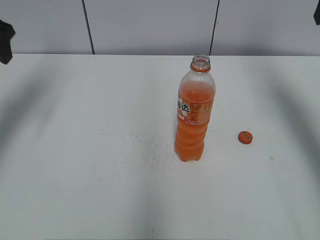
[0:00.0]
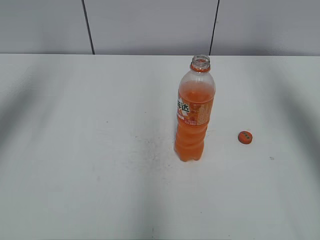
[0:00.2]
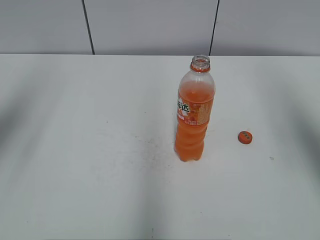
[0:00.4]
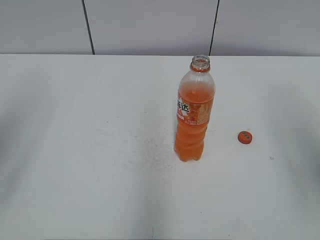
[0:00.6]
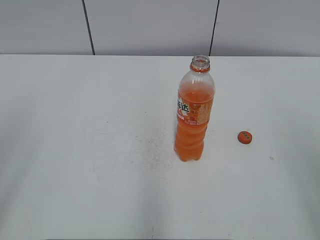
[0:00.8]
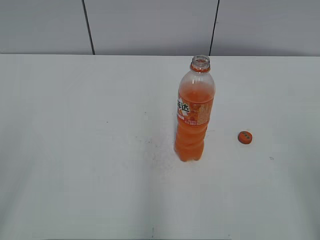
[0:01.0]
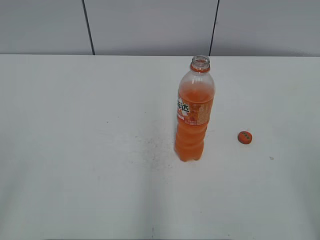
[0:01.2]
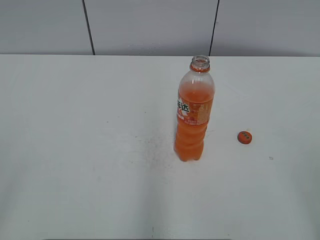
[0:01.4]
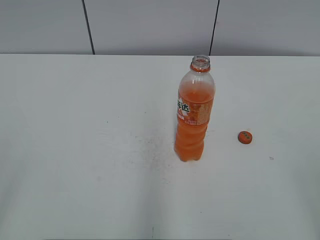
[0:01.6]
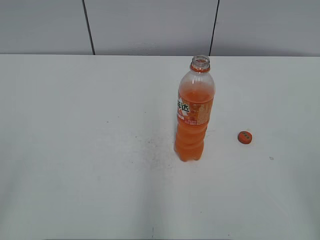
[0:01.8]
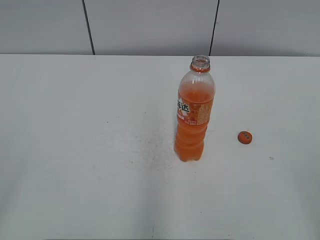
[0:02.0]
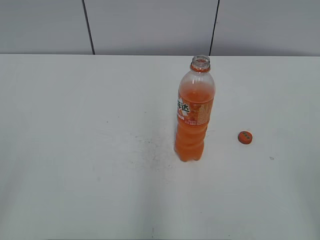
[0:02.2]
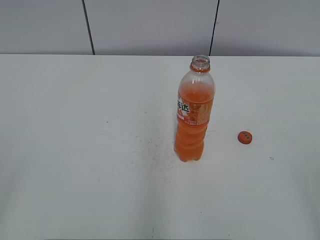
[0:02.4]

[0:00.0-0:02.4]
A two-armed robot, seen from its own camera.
0:00.0 to 0:01.2: Both grippers move backward, approximately 35 cm.

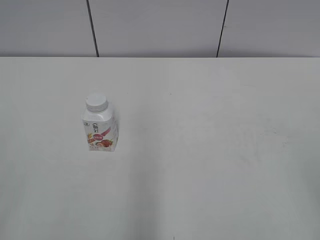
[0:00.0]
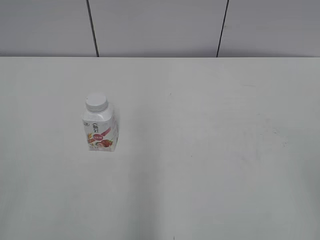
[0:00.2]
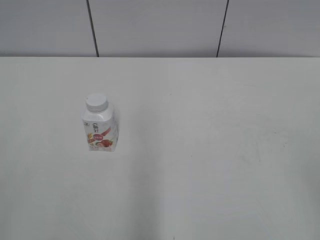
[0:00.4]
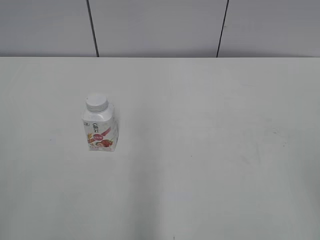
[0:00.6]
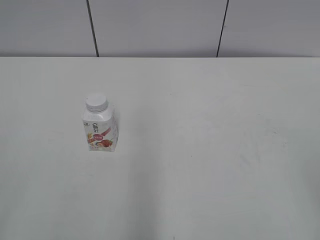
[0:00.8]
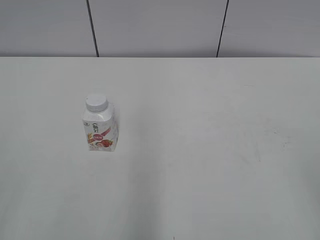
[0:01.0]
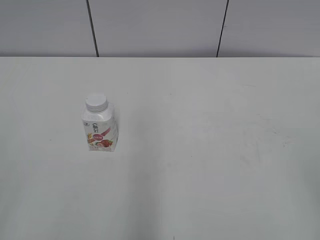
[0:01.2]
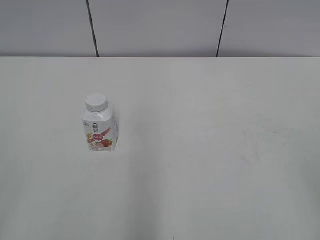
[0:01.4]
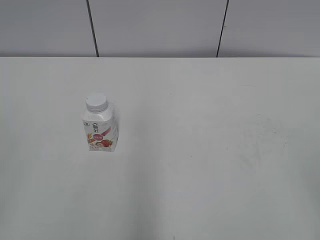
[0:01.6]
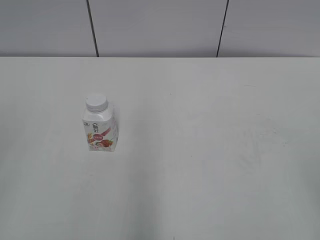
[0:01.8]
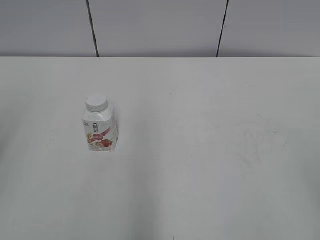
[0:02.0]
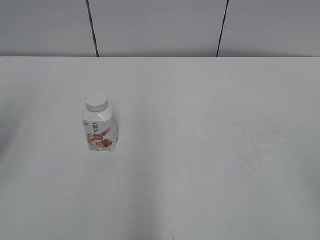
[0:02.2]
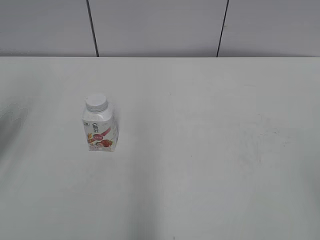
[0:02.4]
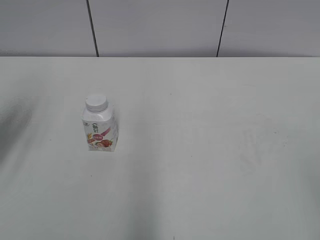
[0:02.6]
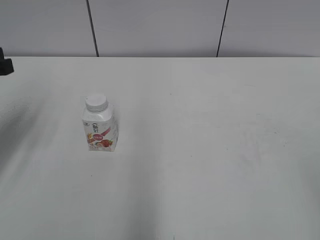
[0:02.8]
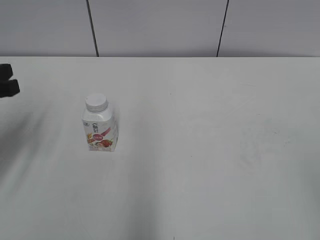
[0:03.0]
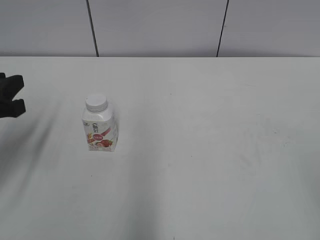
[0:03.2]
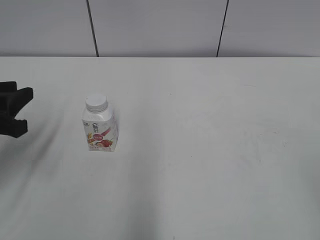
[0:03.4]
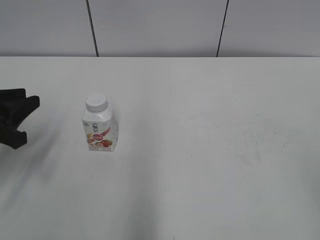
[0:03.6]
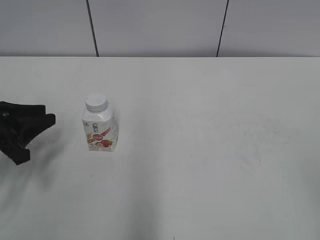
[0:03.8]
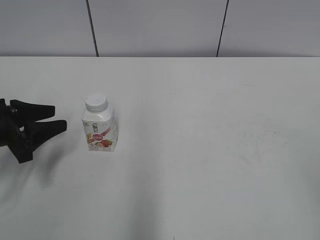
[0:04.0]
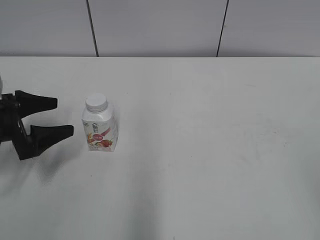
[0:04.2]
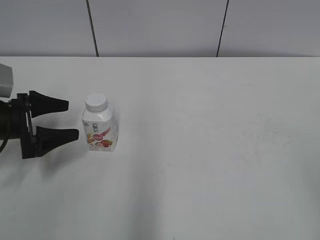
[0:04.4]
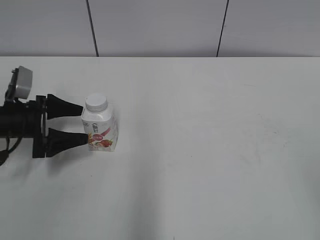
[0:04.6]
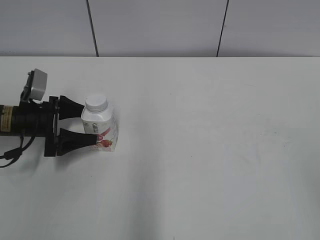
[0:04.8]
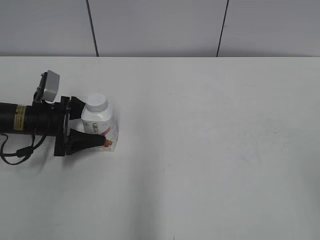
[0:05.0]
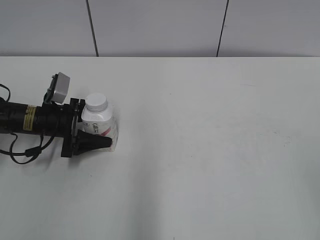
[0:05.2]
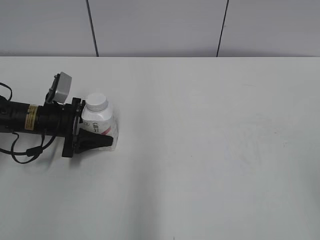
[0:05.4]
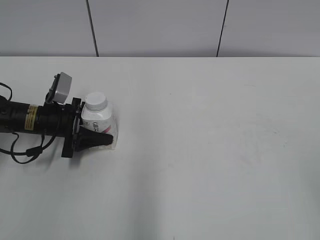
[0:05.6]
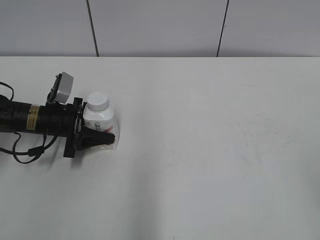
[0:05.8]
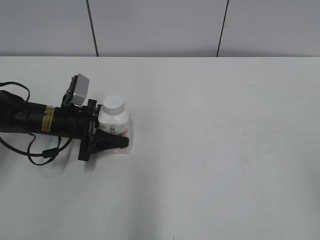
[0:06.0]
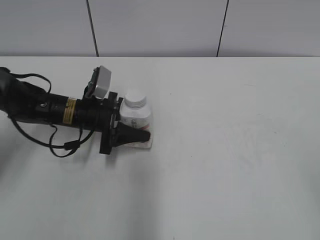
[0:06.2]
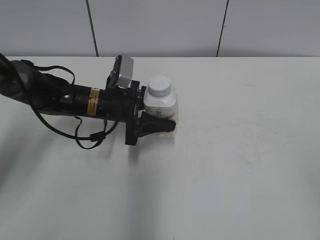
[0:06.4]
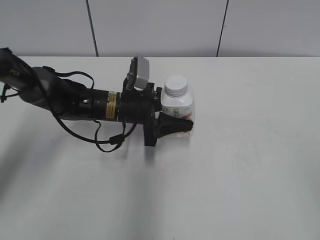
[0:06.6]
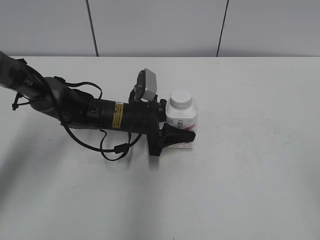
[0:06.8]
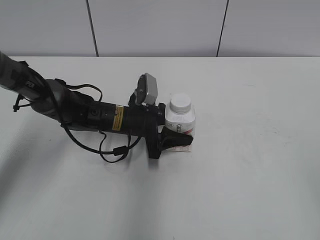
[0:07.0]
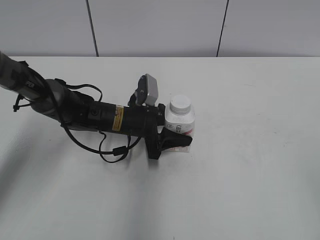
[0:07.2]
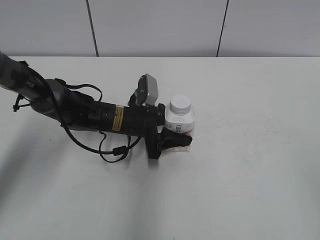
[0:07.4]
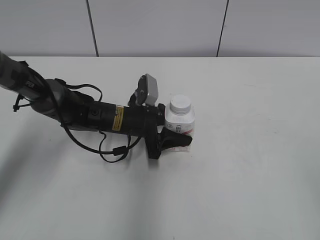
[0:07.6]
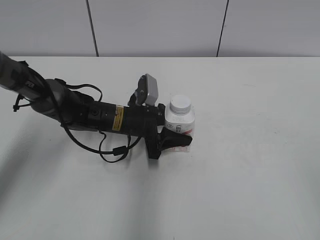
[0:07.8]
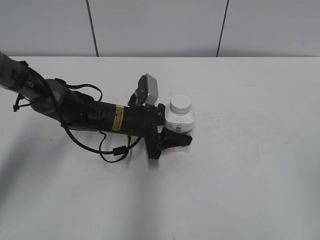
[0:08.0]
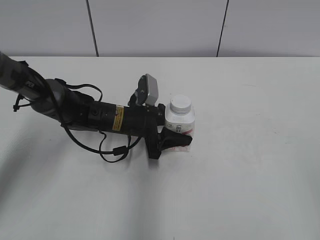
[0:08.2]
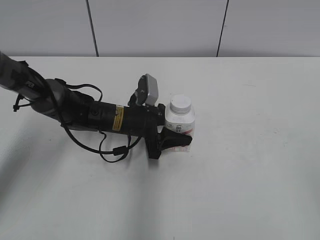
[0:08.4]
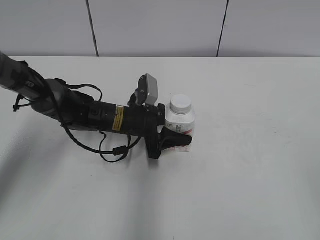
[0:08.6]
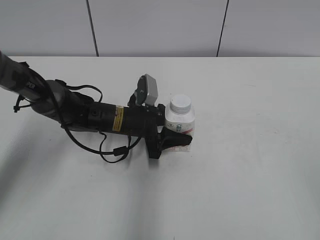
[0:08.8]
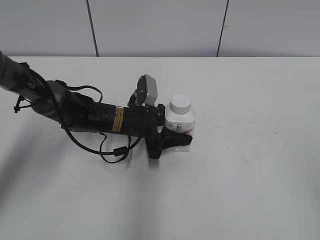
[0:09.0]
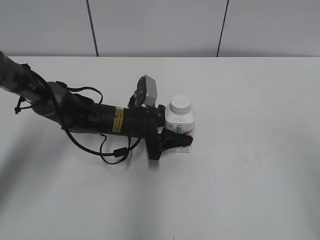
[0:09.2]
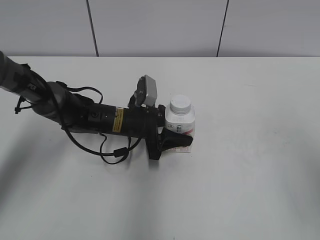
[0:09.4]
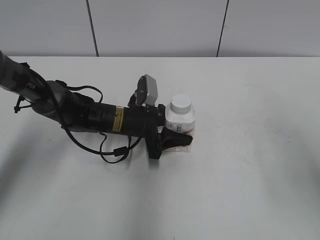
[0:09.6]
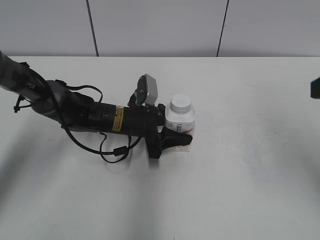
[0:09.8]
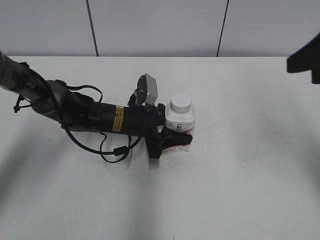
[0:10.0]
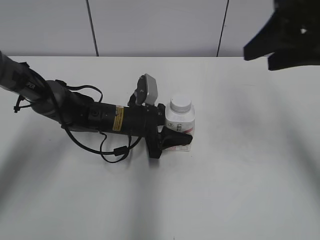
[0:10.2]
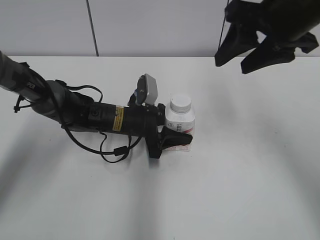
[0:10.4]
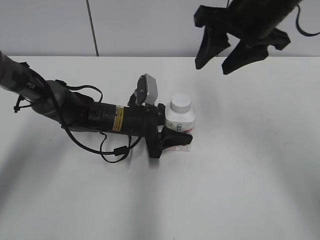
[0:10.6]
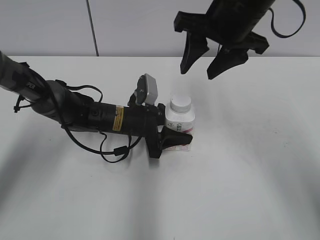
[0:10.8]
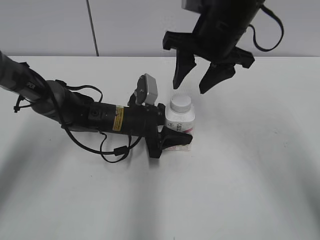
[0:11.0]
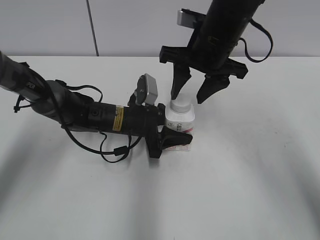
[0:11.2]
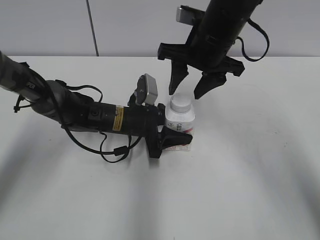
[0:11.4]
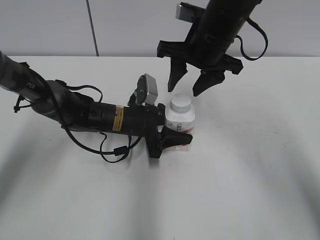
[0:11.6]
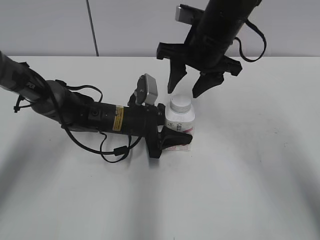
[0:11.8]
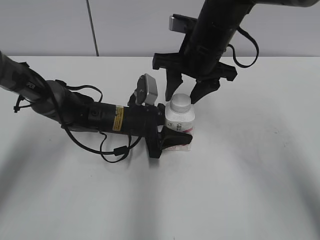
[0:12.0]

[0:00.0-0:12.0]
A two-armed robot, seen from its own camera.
Step, 0:00.0 to 0:05.4: Grab the Yili Changqing with the left hand.
Step, 0:05.8 to 0:09.0: Move the Yili Changqing from left to right.
0:01.6 to 0:03.0: The left gripper heads forward and downward, covering some 25 cm.
0:03.0 to 0:04.4: The left gripper heads downward, covering some 10 cm, and opens up.
0:04.4 to 0:06.0: The left gripper goes approximately 10 cm to the right, forward and downward, and closes up.
0:06.0 to 0:07.6: The left gripper shifts approximately 15 cm to the right.
0:07.6 to 0:09.0: The grippers stay close to where they were, moving slightly.
0:09.0 to 0:10.4: The right gripper is displaced forward and to the left by approximately 30 cm.
0:10.4 to 0:12.0: The right gripper goes about 15 cm to the left, downward and forward.

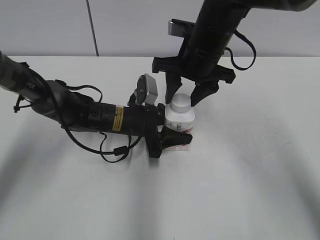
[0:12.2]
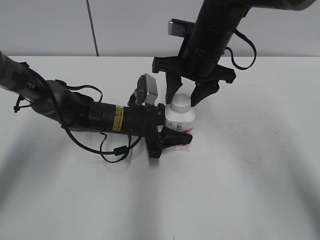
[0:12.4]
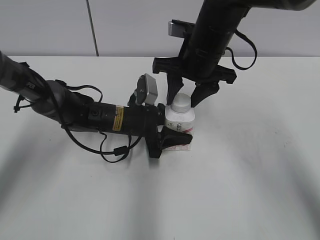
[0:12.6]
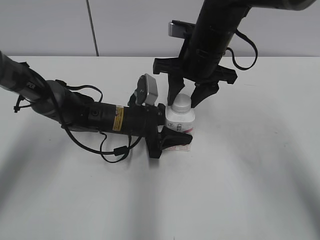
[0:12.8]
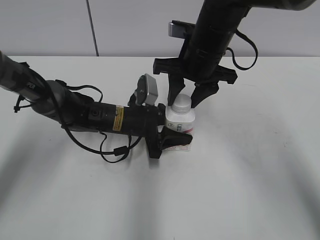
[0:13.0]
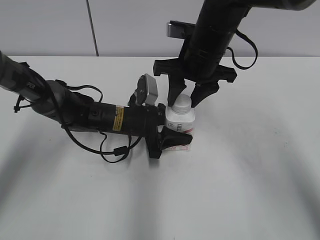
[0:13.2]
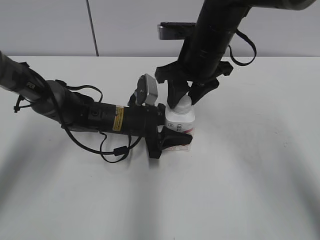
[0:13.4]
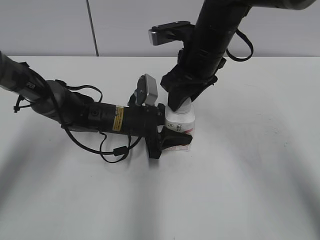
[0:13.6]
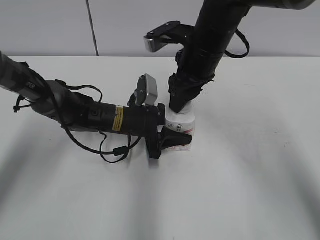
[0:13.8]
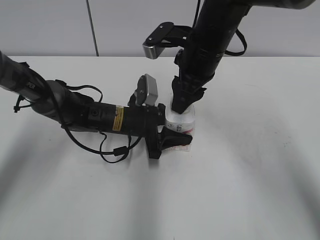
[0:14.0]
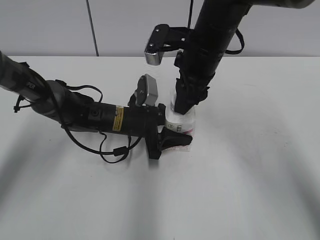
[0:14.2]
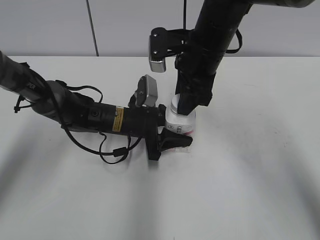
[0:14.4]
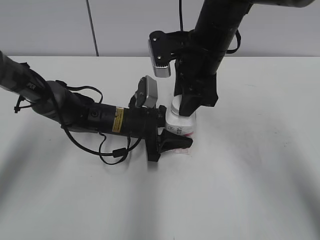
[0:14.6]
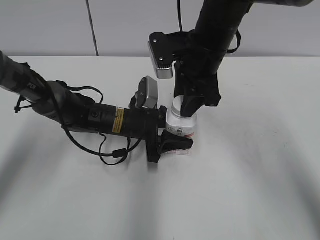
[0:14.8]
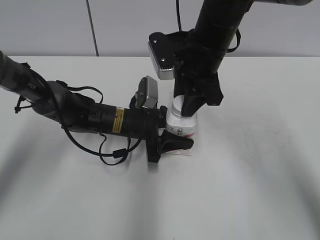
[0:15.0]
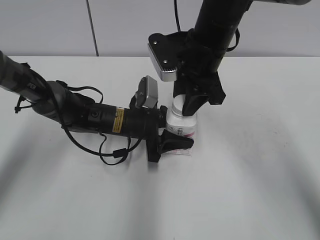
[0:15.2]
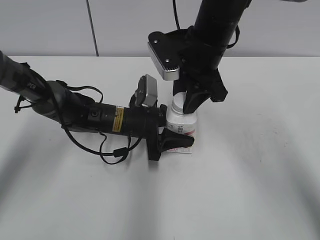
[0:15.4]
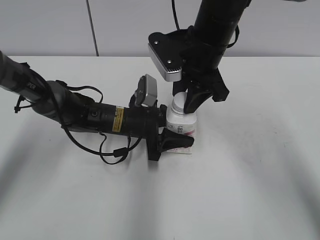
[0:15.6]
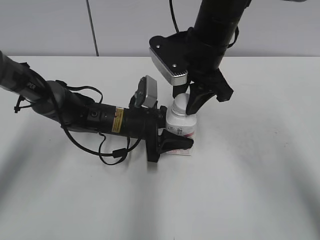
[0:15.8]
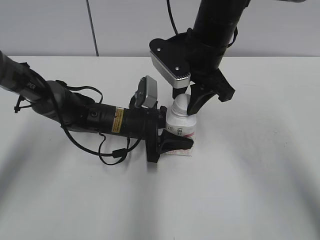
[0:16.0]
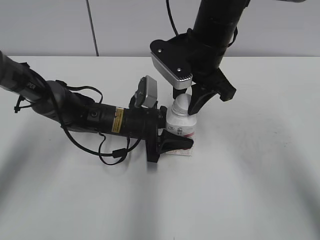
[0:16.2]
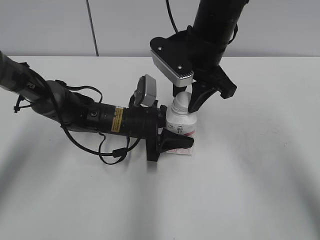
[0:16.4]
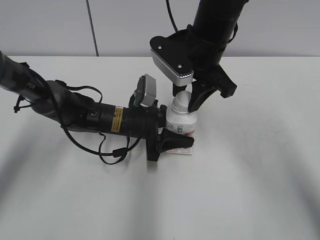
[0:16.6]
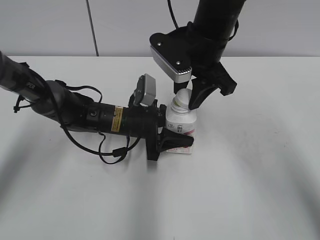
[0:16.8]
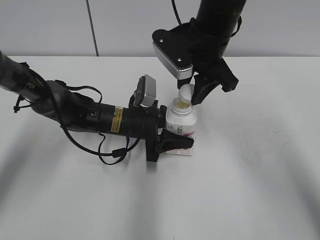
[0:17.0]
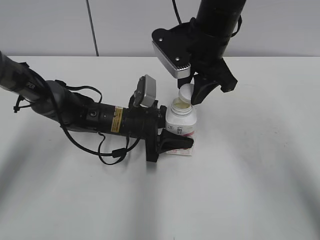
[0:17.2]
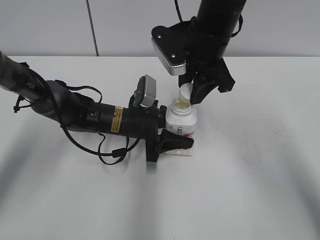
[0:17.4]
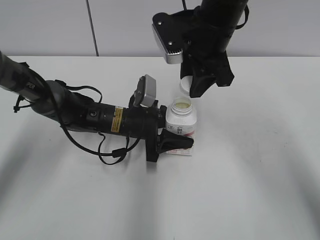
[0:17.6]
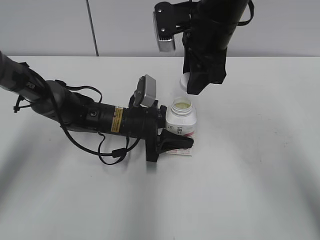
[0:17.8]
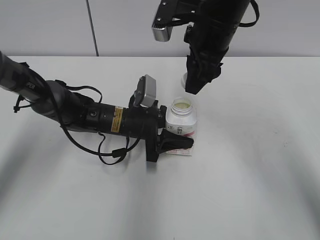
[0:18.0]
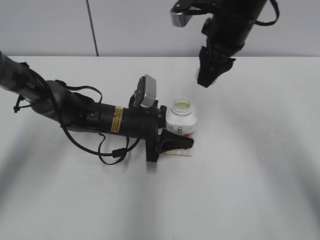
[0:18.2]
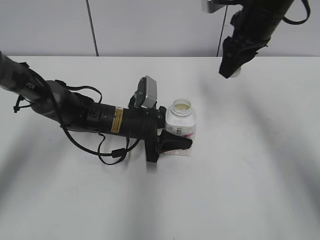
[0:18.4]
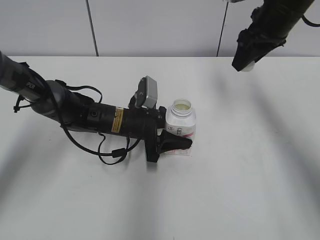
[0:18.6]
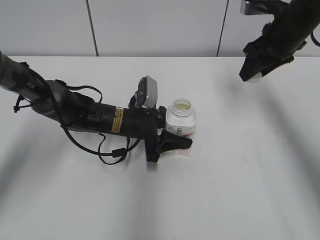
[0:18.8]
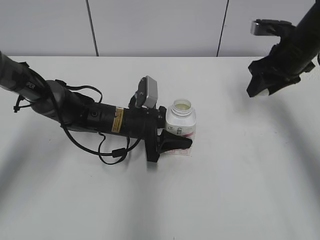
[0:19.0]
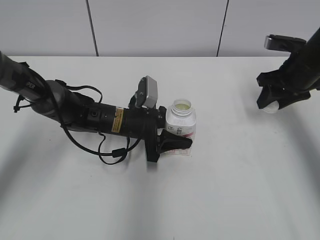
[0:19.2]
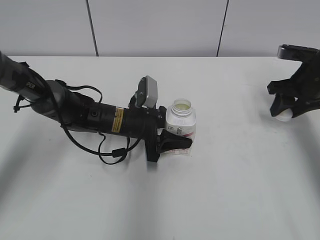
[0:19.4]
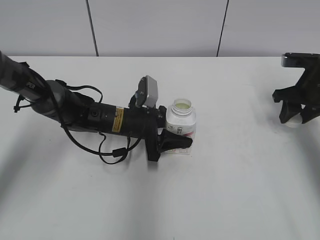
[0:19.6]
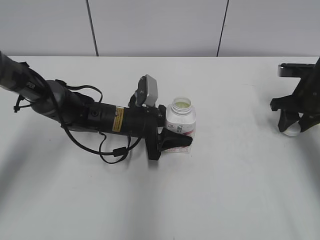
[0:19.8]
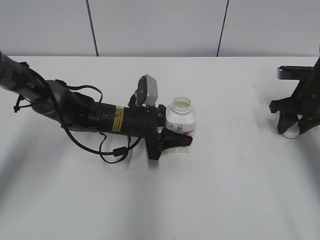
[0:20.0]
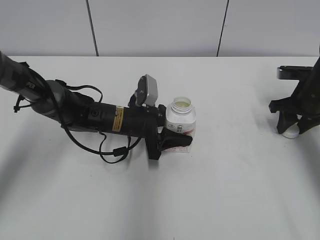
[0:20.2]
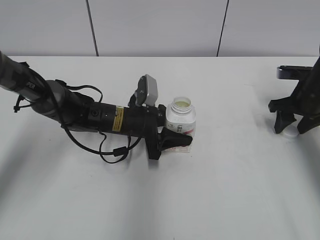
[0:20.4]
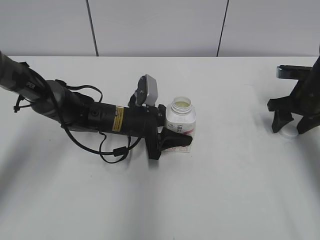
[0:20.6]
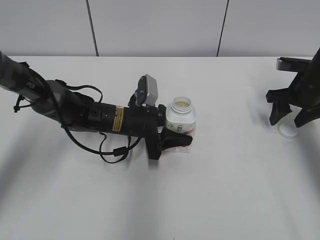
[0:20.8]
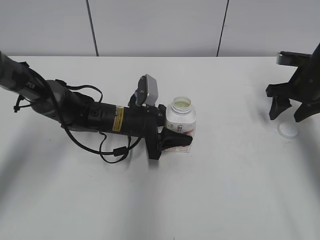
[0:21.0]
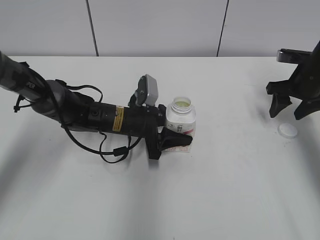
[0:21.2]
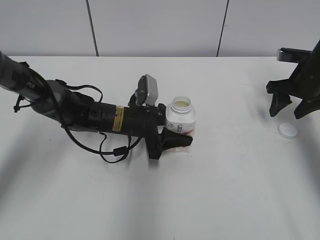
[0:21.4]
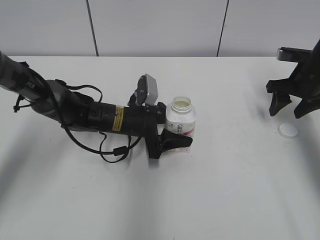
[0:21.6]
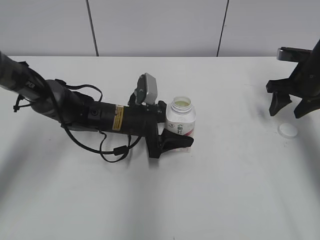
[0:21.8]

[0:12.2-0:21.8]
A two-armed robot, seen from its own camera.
Step, 0:12.2 to 0:16.6: Fix the Yili Changqing on the left.
Step, 0:16.8 to 0:20.6: Place the bottle cap on the right.
Step, 0:20.8 to 0:21.8: Place the Yili Changqing with the left hand.
0:12.2 to 0:13.8: The right gripper closes up.
0:15.4 to 0:17.0: The grippers make only small movements.
0:17.0 to 0:18.6: The right gripper is displaced to the right and forward by some 15 cm.
0:18.6 to 0:20.2: The right gripper heads downward and to the right, covering roughly 20 cm.
0:20.2 to 0:21.8: The right gripper opens up.
